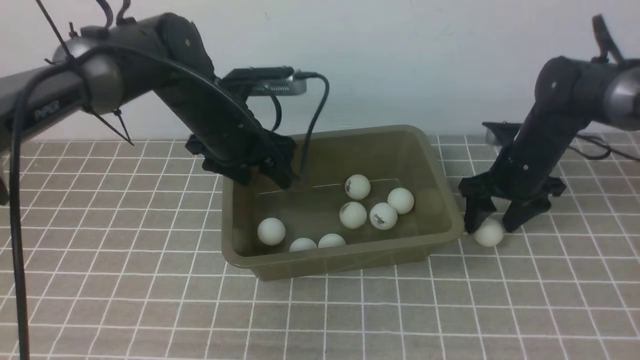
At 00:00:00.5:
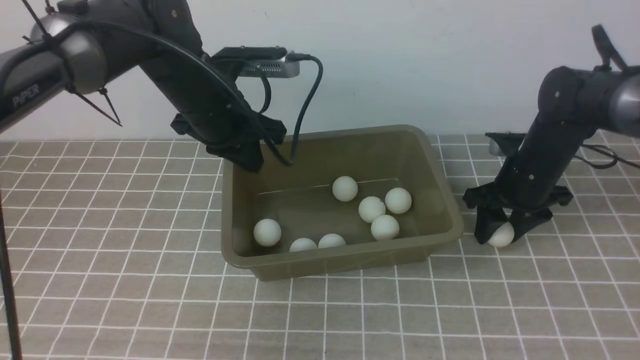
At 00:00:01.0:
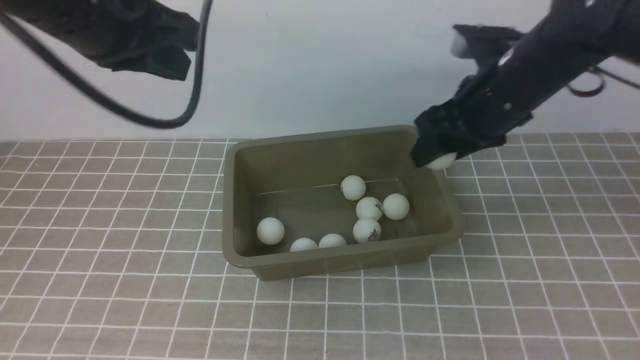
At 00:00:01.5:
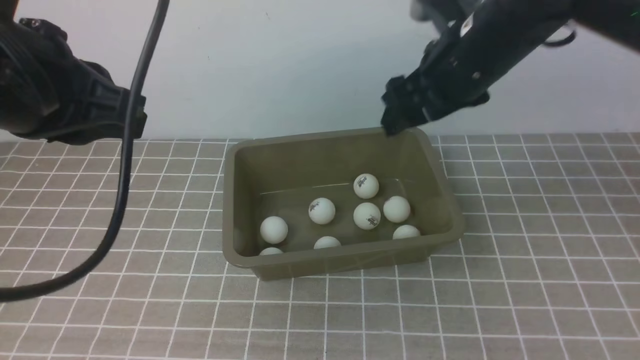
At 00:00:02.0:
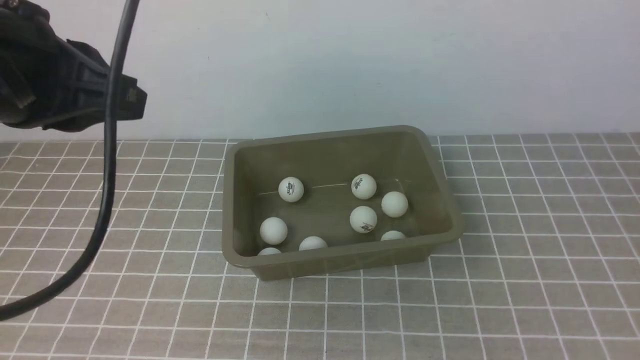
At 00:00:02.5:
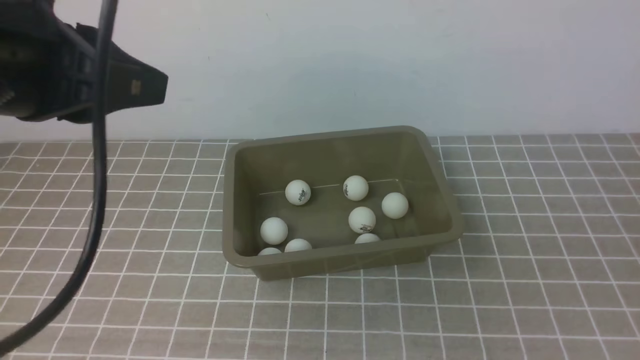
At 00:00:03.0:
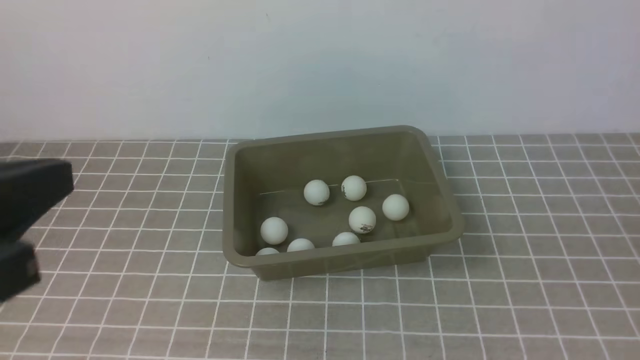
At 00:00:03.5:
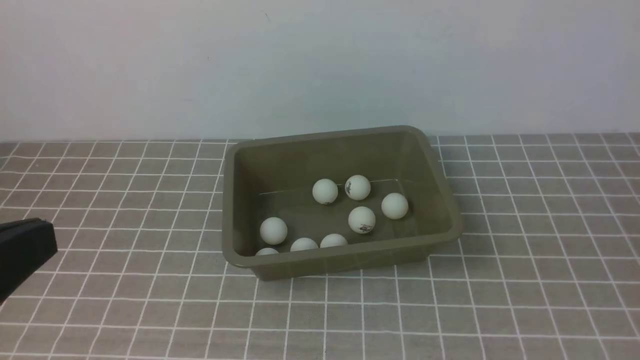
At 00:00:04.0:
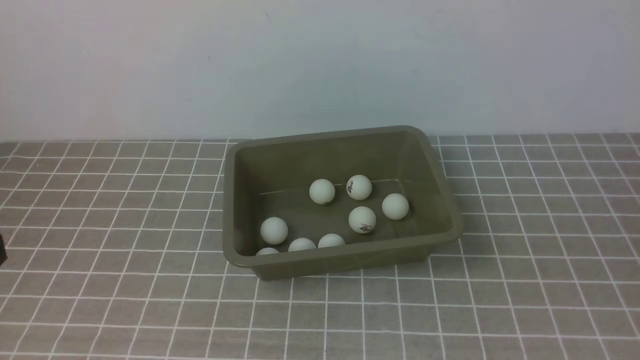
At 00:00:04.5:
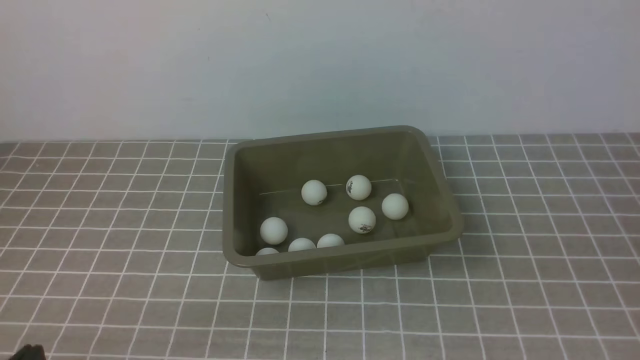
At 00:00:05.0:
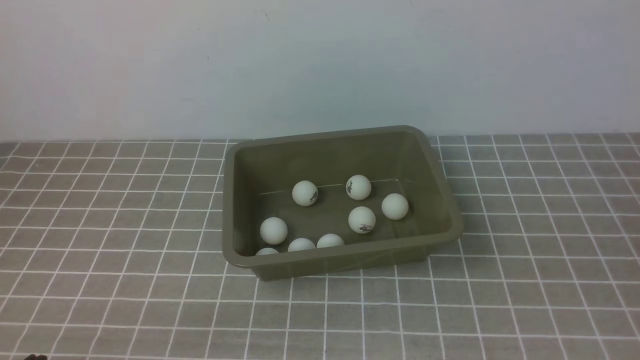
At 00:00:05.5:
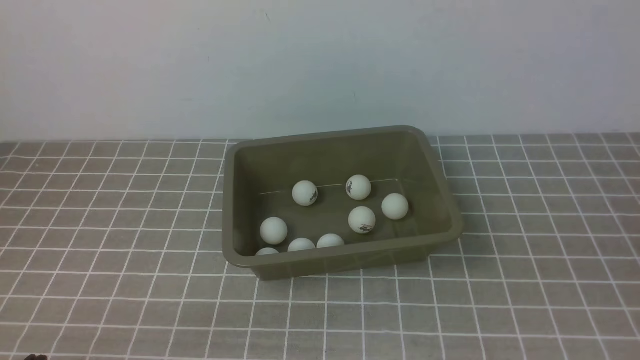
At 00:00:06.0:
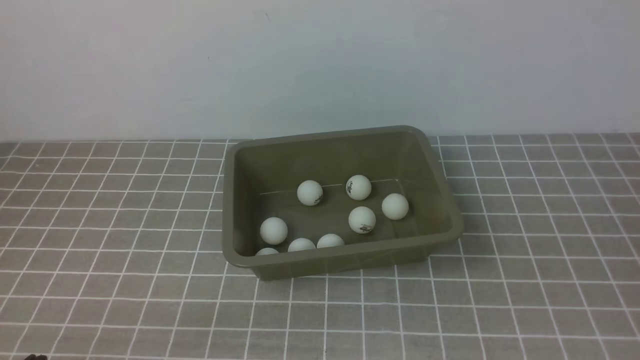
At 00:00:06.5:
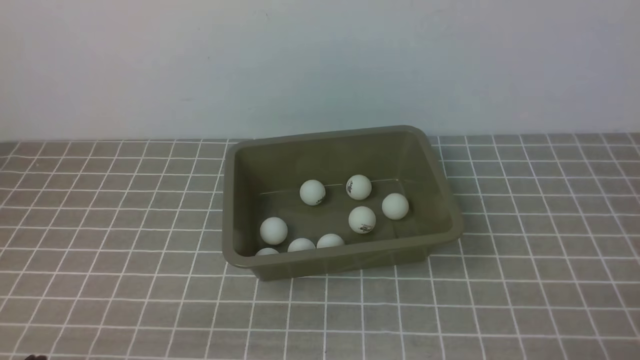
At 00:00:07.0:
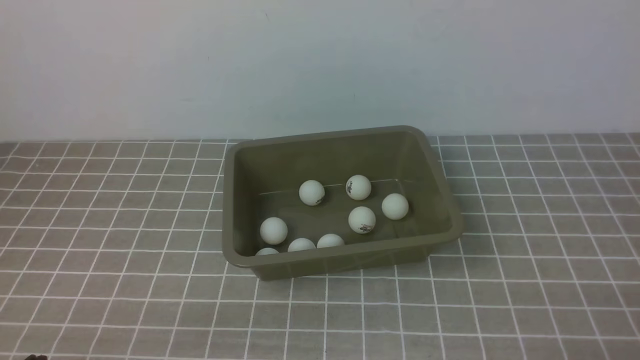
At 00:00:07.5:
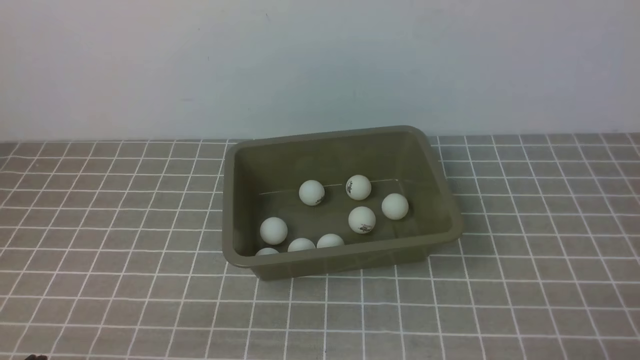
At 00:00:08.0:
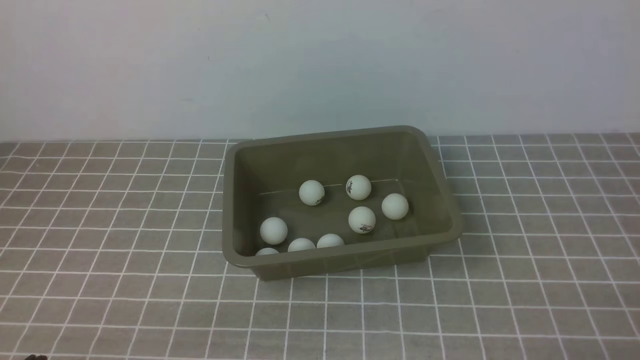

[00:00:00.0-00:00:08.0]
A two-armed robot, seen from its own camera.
Step, 00:00:00.0 to 00:00:00.5: use the right arm to clamp the table tennis ball closest to it.
00:00:00.0 to 00:00:02.0: The right gripper shifts some 40 cm upward and backward, and closes its fingers. The left gripper shifts about 25 cm backward and upward, and closes up.
00:00:02.0 to 00:00:04.0: The left gripper shifts about 15 cm backward and downward; the right gripper heads downward, backward and to the right, covering about 25 cm.
